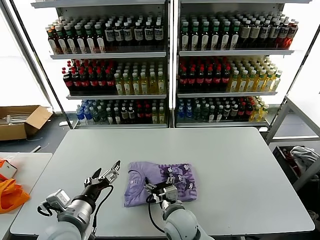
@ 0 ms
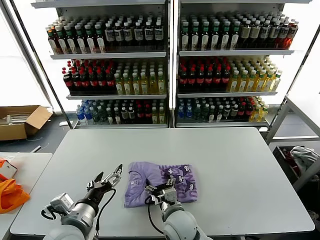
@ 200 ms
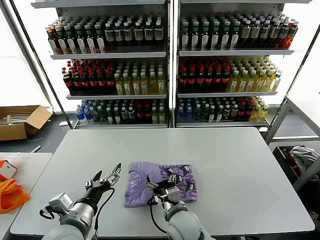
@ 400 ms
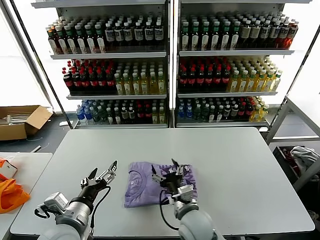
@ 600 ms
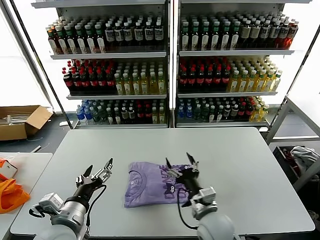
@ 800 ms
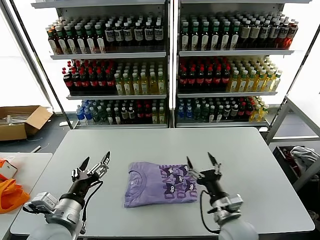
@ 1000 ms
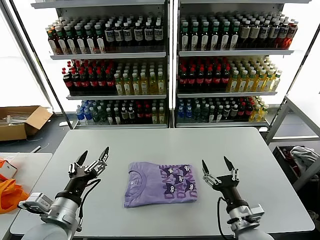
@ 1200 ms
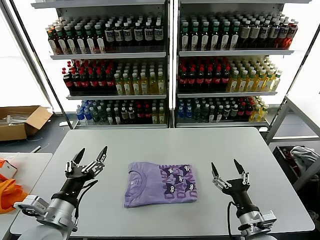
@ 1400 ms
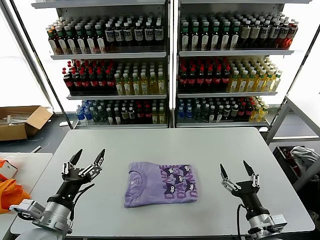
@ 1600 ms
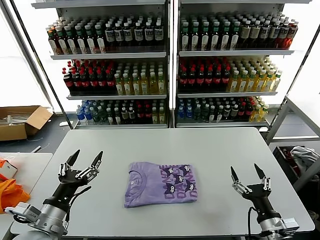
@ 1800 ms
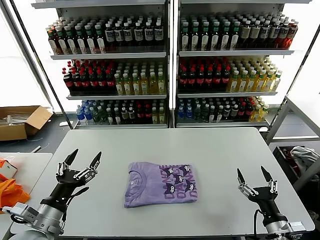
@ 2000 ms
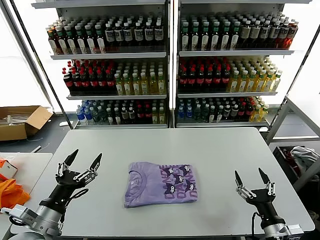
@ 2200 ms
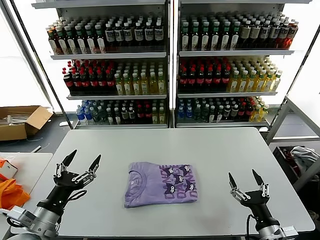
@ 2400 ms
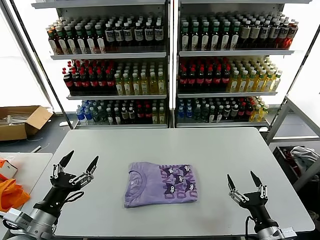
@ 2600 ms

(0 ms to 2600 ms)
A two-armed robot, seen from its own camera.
Task of the whole recording: fold and organize the clothes.
0 ms - 1200 ms: The right gripper travels to the right by roughly 20 cm.
1200 ms - 2600 ms: The right gripper travels to the right and backward by some 10 cm; the left gripper is displaced to the left by some 5 cm.
